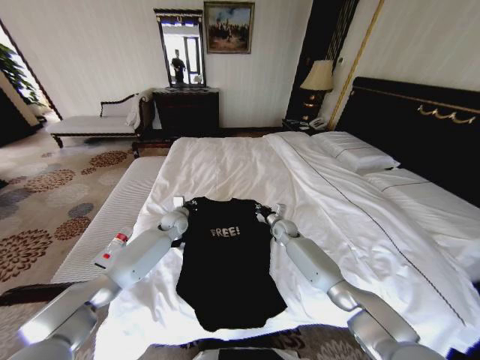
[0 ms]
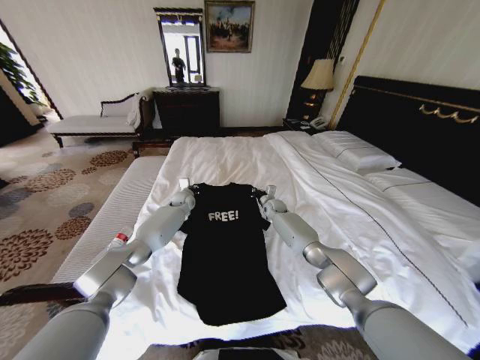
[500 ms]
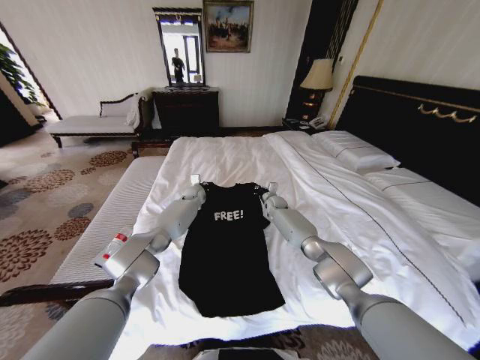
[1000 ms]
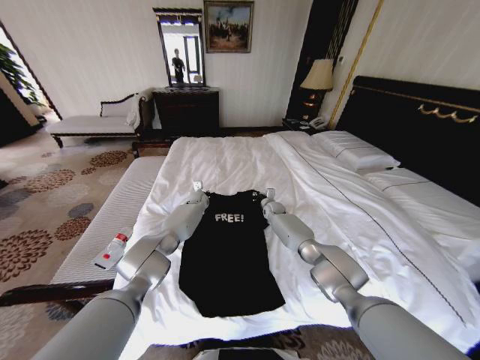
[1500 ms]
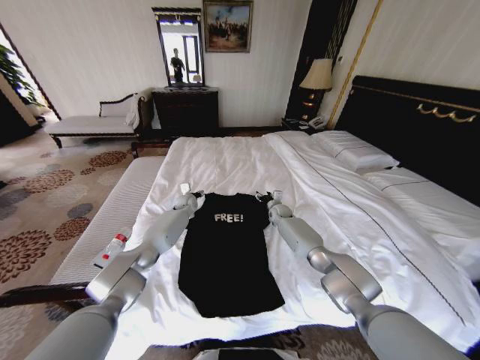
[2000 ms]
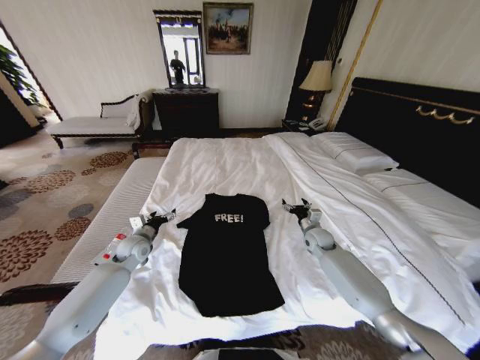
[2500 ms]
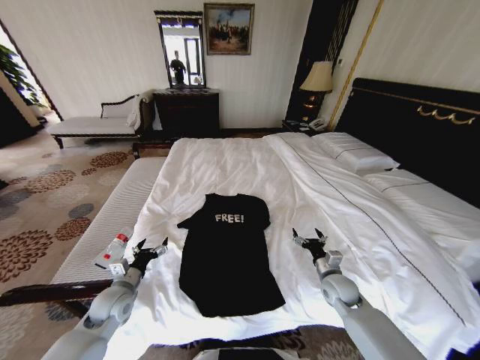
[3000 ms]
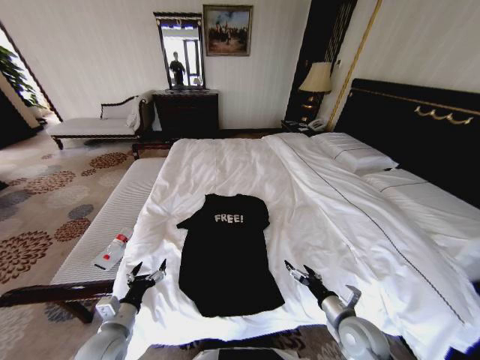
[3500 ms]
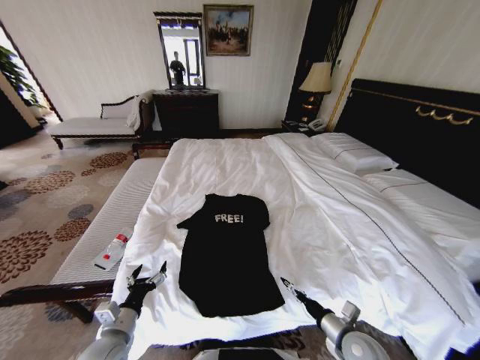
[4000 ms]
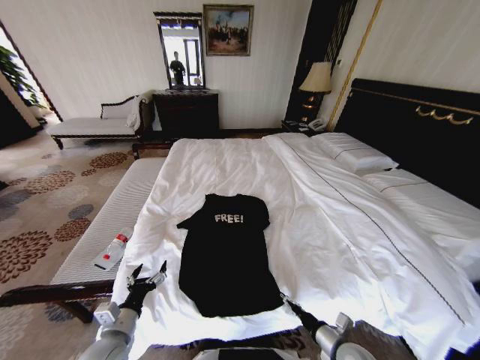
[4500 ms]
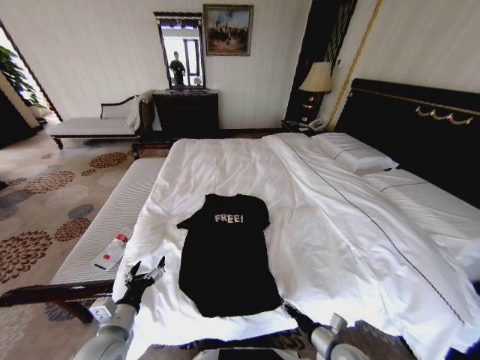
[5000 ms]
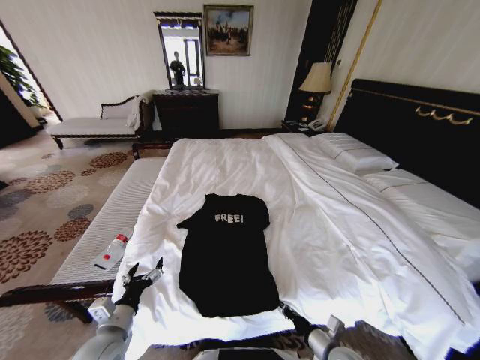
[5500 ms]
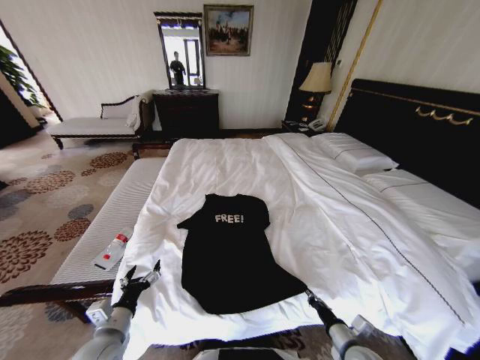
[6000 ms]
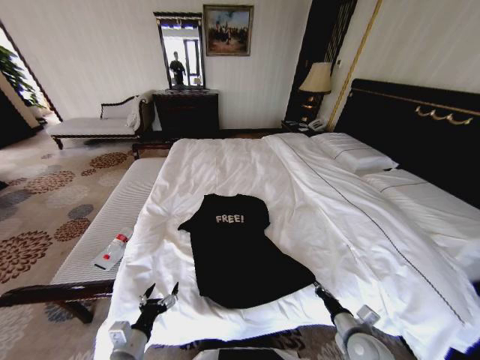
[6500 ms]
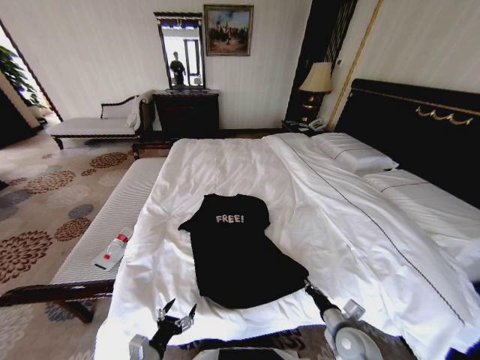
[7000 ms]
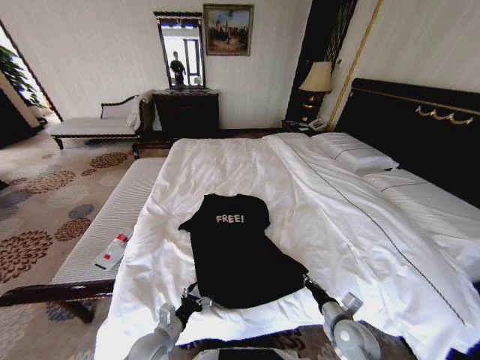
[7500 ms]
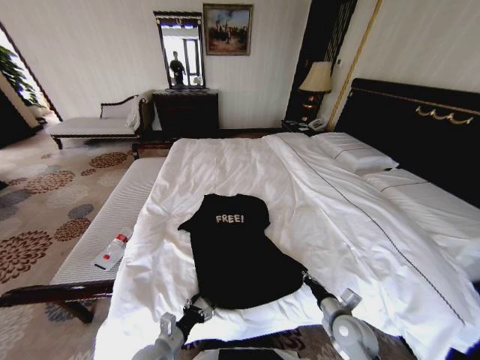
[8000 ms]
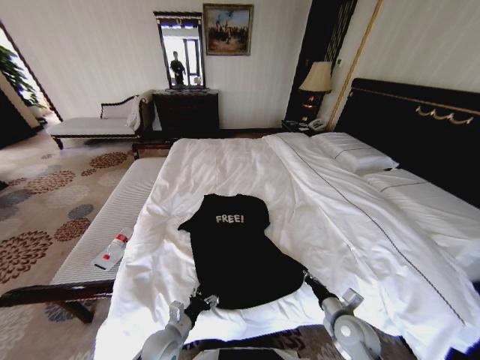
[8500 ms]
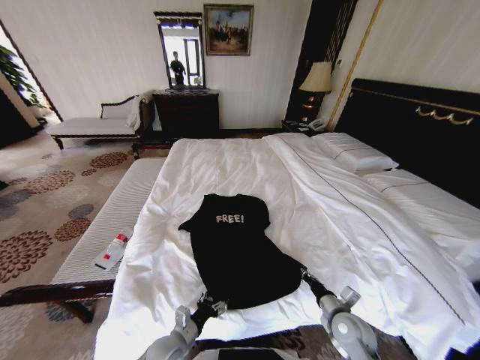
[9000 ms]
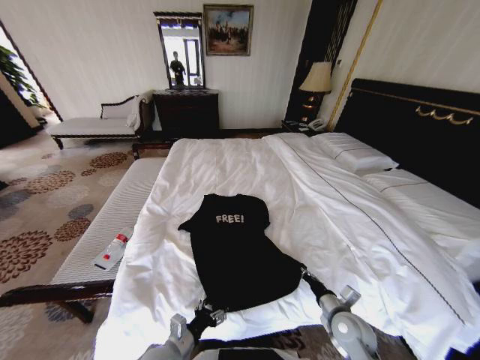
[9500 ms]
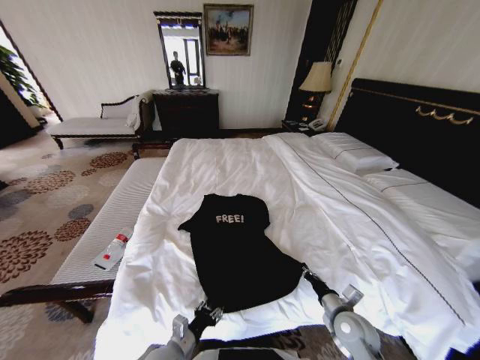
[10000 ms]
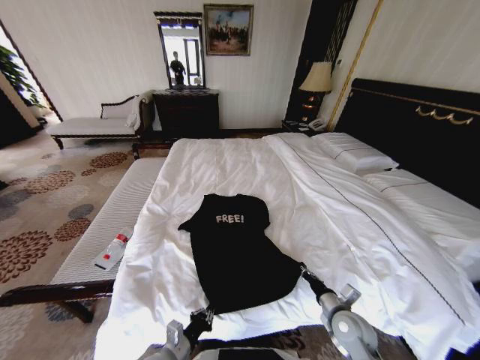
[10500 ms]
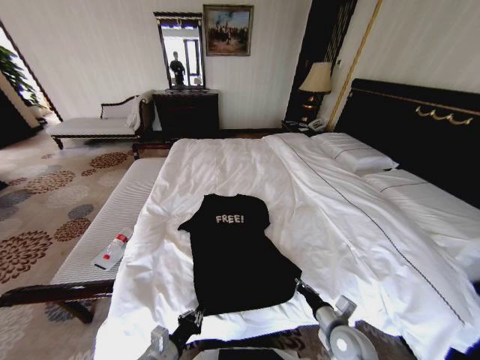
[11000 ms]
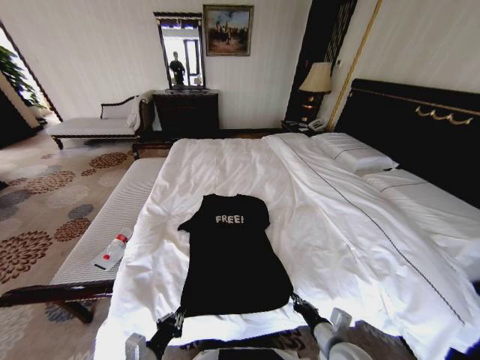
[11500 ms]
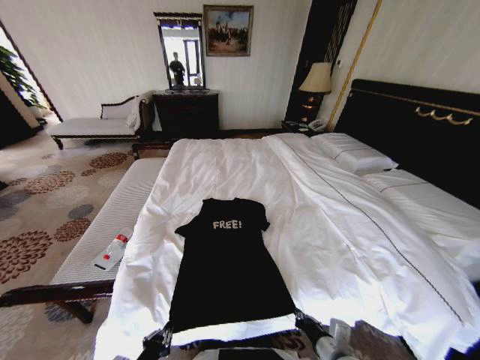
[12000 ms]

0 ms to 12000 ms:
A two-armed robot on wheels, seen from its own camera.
Task of the whole recording: Fold the clothes on the bed.
0 ms to 2000 ms: Both grippers move forward, roughly 10 cm. The right gripper opens its fingers. Meanwhile the left gripper opens up.
2000 ms to 4000 ms: Both grippers move backward, roughly 50 cm. The right gripper opens.
4000 ms to 6000 ms: The right gripper closes up.
6000 ms to 8000 ms: The right gripper heads forward, covering roughly 5 cm. Meanwhile the left gripper goes approximately 15 cm downward and to the right.
8000 ms to 10000 ms: The grippers move only a little.
10000 ms to 12000 ms: The left gripper heads backward, to the left and upward, covering about 15 cm, and closes. The right gripper goes approximately 10 cm backward and to the left.

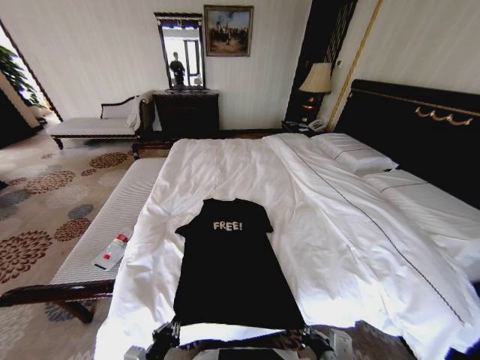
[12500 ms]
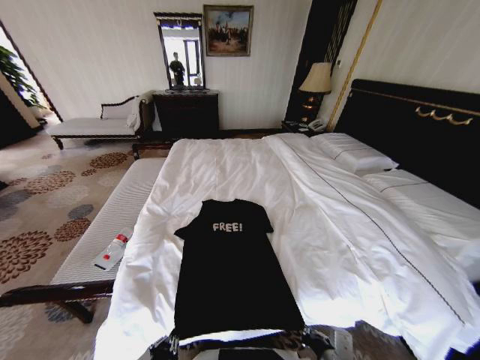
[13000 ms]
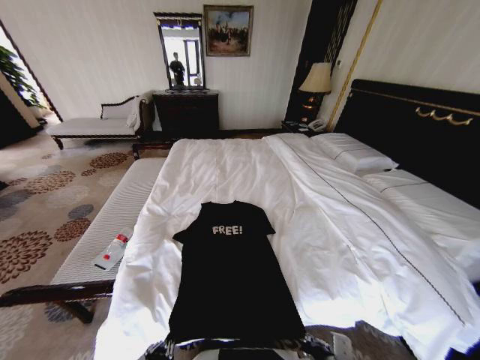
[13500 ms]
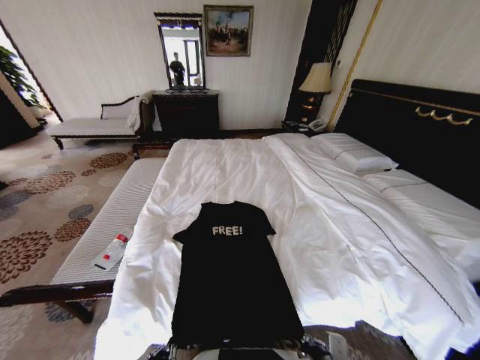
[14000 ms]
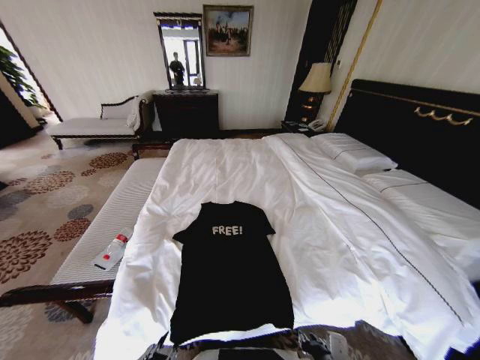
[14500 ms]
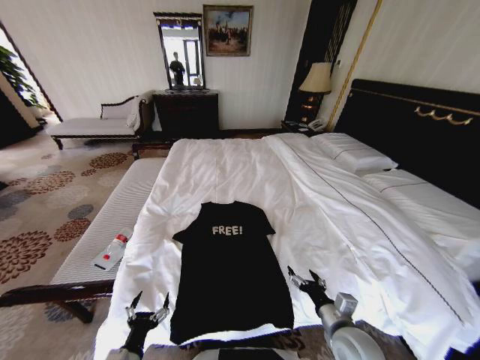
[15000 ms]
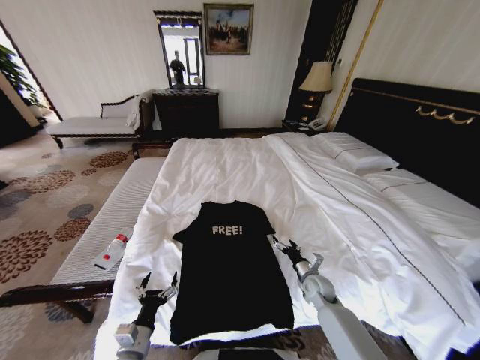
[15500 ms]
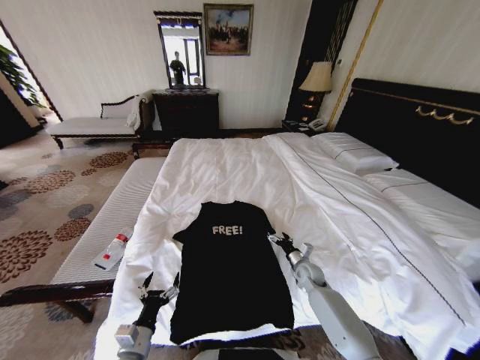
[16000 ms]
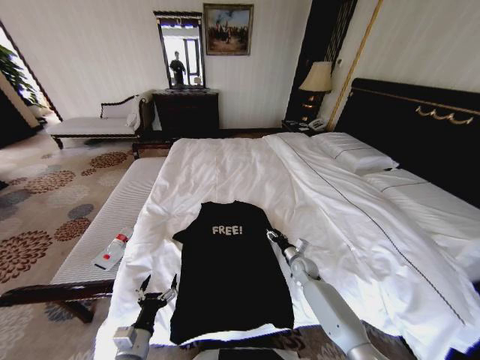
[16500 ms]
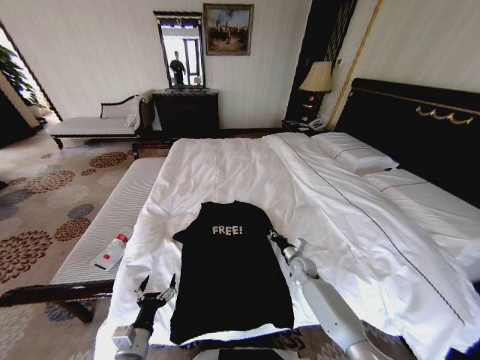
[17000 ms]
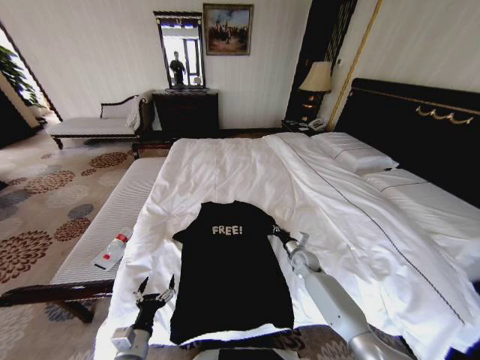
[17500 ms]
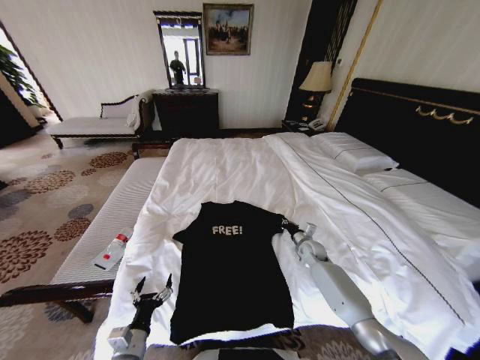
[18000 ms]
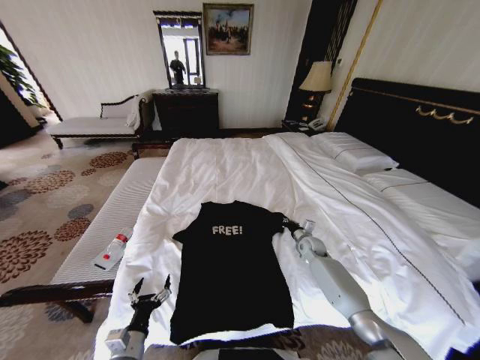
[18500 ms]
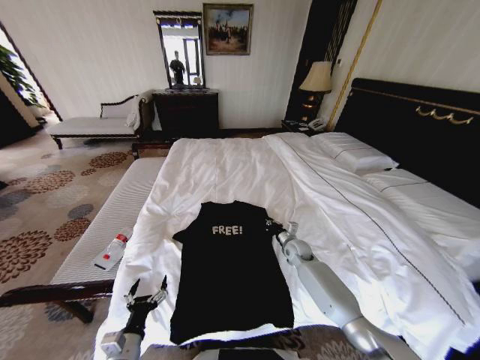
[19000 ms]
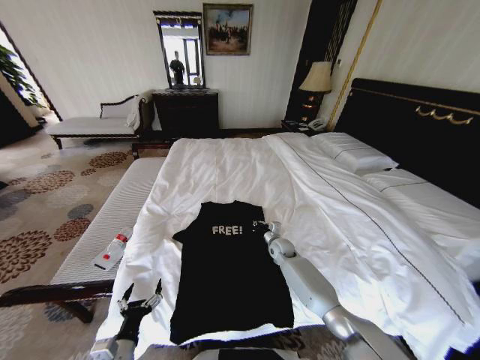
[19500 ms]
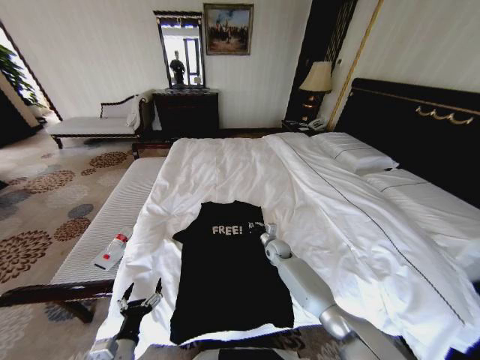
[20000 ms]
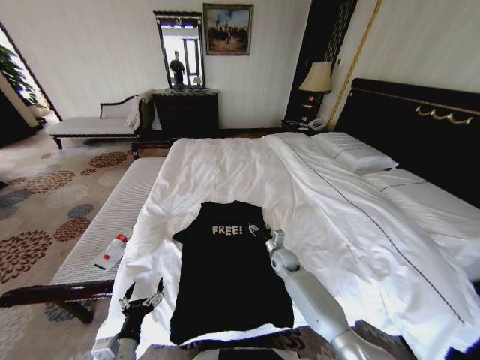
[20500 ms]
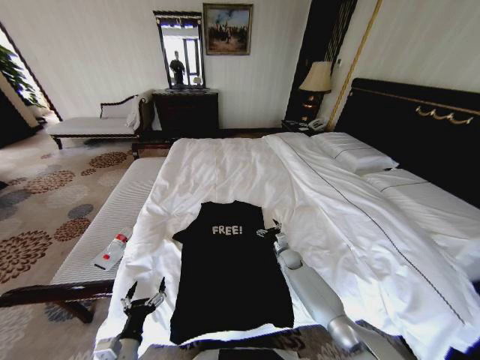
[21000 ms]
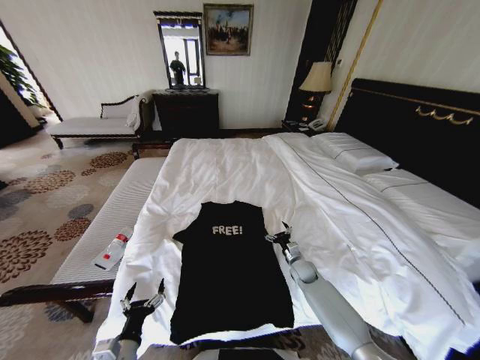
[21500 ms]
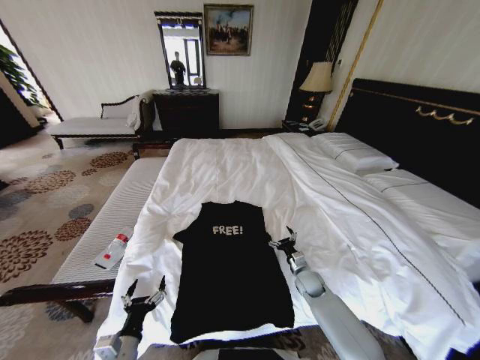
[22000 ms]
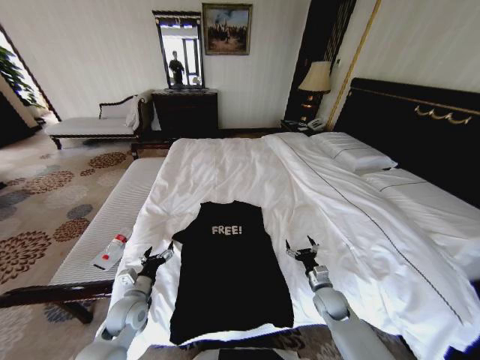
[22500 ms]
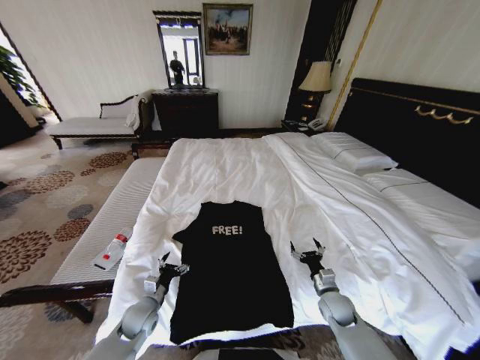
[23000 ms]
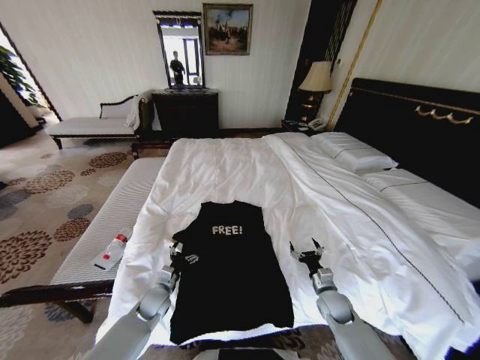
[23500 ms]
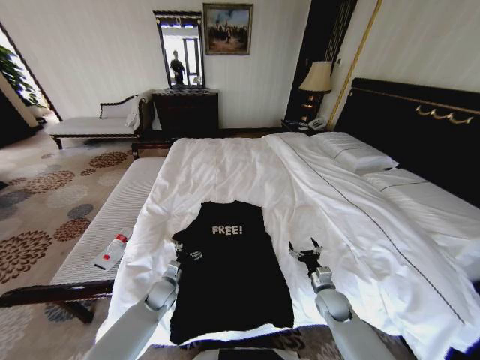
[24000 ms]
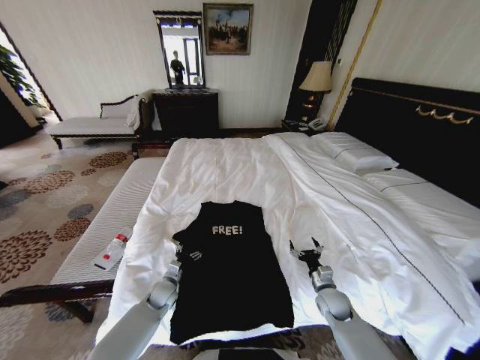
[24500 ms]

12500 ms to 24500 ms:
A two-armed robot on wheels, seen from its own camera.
Task of the whole recording: Fold the clothes on the bed.
12500 ms to 14500 ms: The left gripper moves backward, some 5 cm, and opens its fingers.
14500 ms to 16500 ms: The left gripper travels forward by roughly 10 cm, and opens up; the right gripper is displaced forward by approximately 30 cm, and opens up.
16500 ms to 18500 ms: The right gripper shifts some 5 cm forward, and closes up.
18500 ms to 20500 ms: The right gripper goes some 15 cm to the left, and opens up.
20500 ms to 22500 ms: The left gripper is displaced forward by about 15 cm. The right gripper goes some 20 cm backward and to the right, and opens its fingers.
22500 ms to 24500 ms: The left gripper shifts some 15 cm downward and forward.

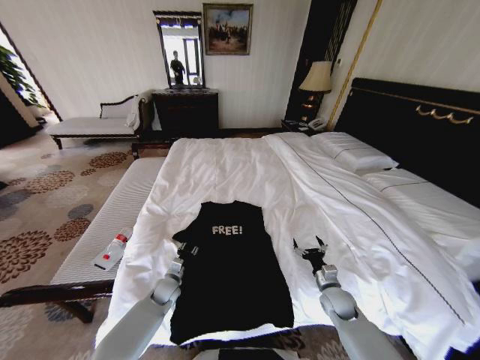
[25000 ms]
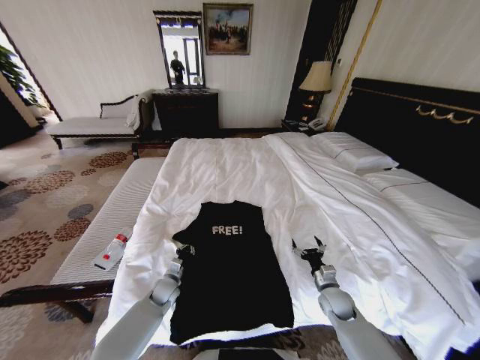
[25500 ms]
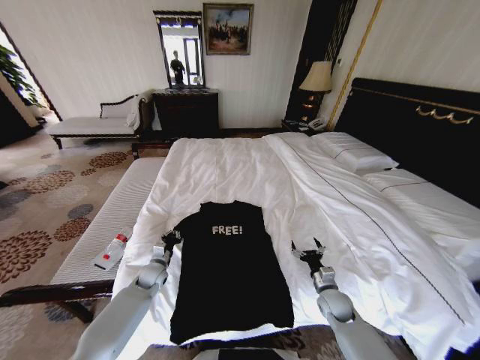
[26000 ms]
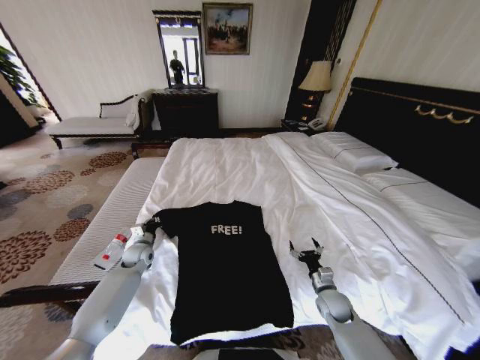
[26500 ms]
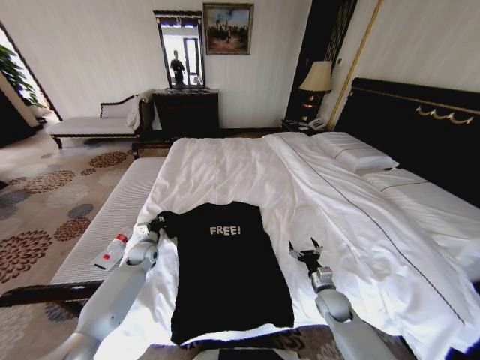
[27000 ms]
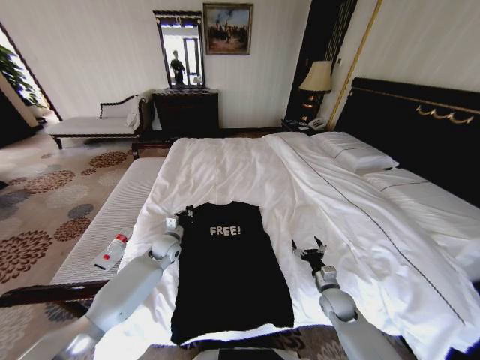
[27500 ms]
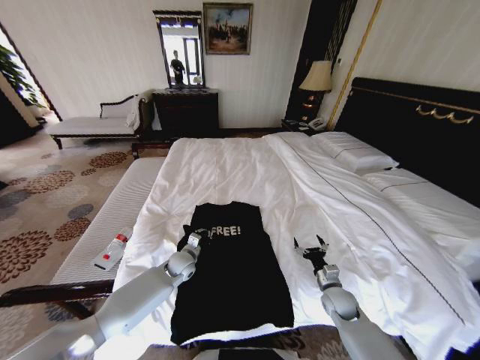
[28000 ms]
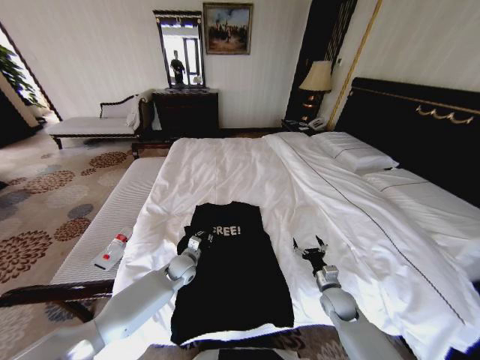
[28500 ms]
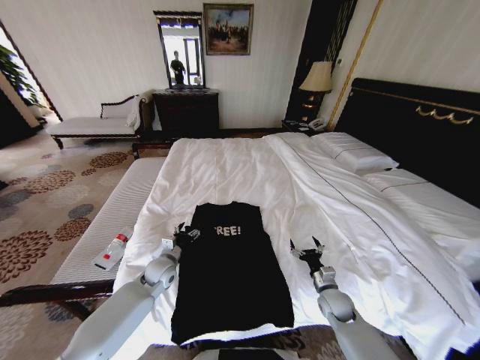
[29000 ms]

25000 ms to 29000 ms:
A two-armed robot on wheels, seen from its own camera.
Task of the whole recording: Fold the clothes on the bed.
25000 ms to 27000 ms: The left gripper travels forward, to the left and upward by about 15 cm, and closes its fingers.
27000 ms to 29000 ms: The left gripper shifts some 10 cm to the right and backward, and opens.
